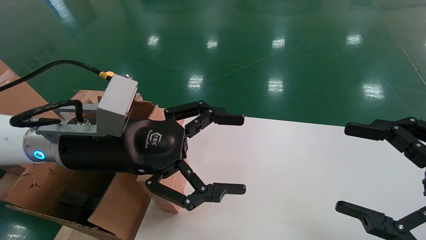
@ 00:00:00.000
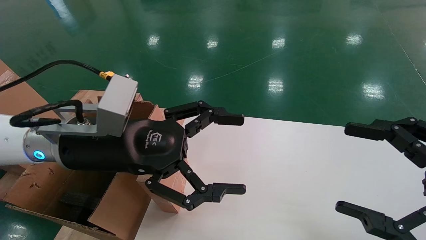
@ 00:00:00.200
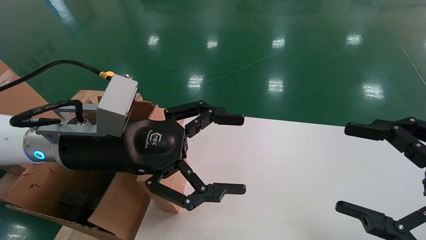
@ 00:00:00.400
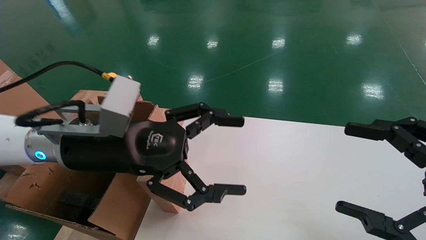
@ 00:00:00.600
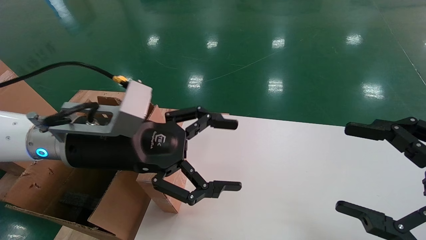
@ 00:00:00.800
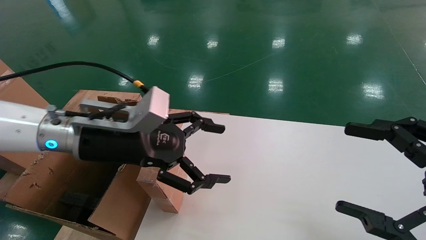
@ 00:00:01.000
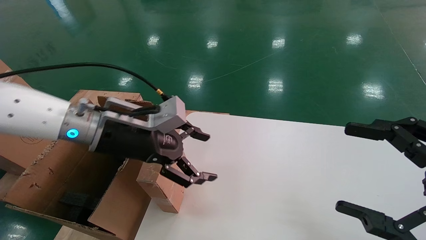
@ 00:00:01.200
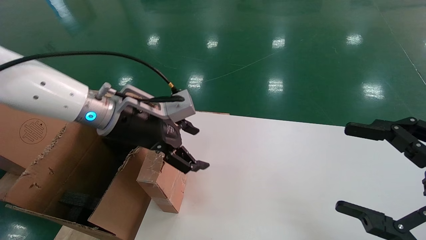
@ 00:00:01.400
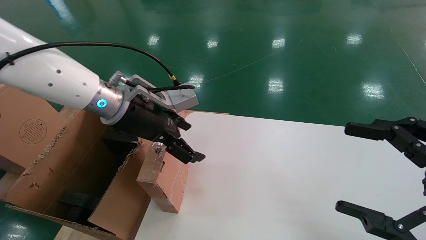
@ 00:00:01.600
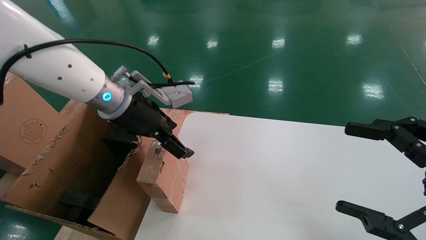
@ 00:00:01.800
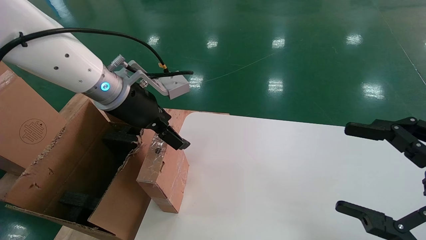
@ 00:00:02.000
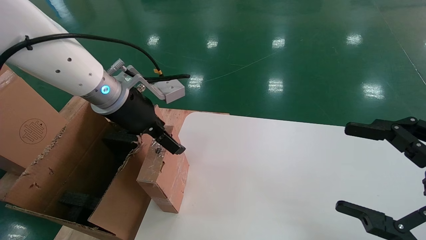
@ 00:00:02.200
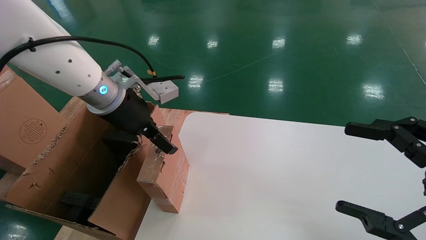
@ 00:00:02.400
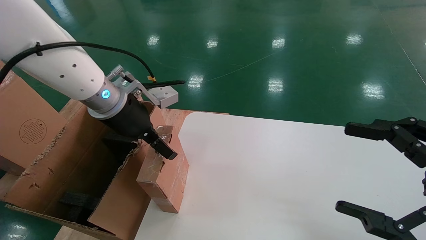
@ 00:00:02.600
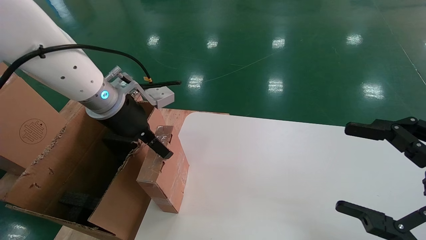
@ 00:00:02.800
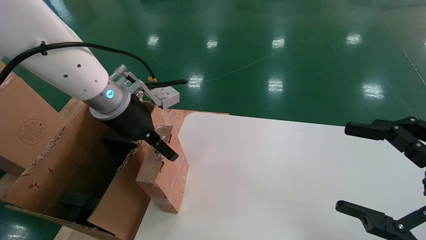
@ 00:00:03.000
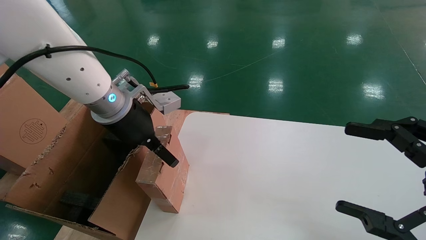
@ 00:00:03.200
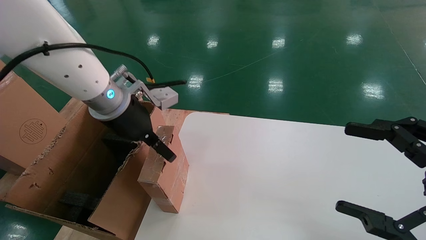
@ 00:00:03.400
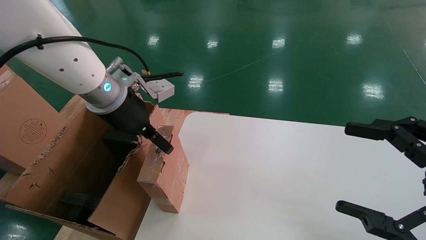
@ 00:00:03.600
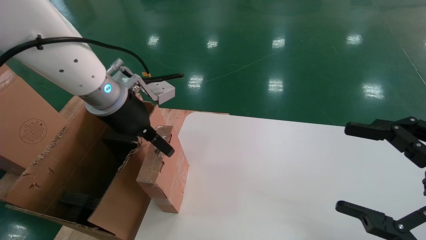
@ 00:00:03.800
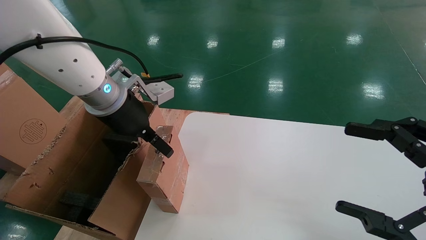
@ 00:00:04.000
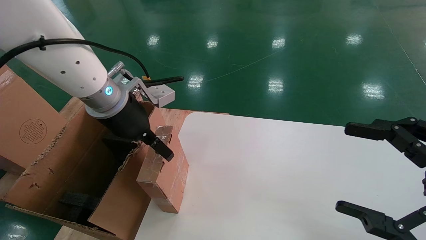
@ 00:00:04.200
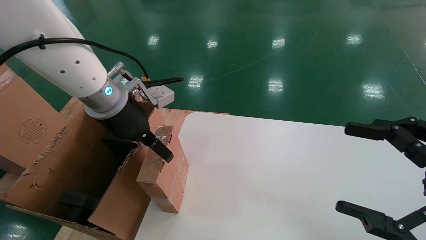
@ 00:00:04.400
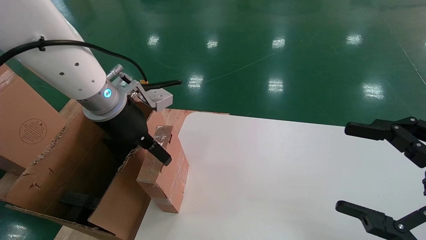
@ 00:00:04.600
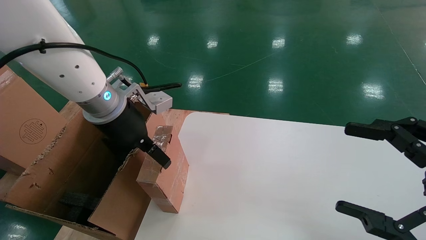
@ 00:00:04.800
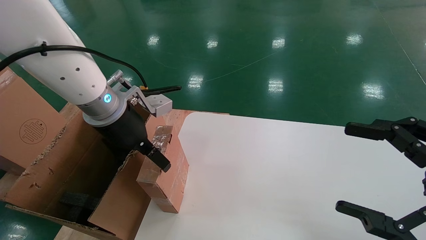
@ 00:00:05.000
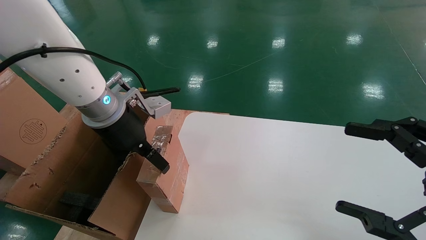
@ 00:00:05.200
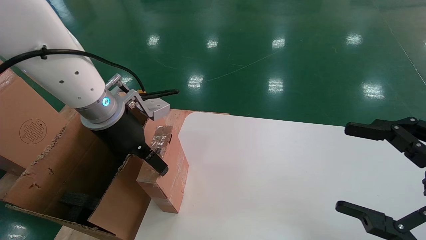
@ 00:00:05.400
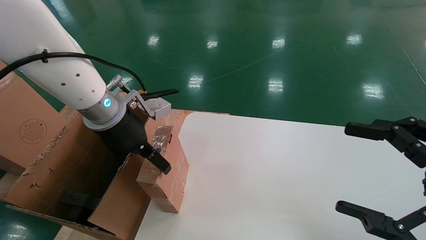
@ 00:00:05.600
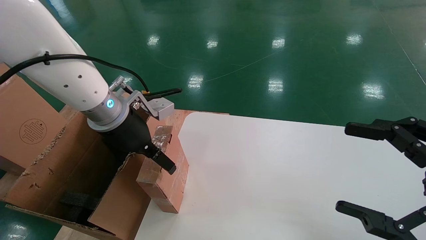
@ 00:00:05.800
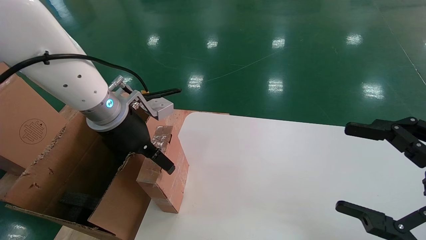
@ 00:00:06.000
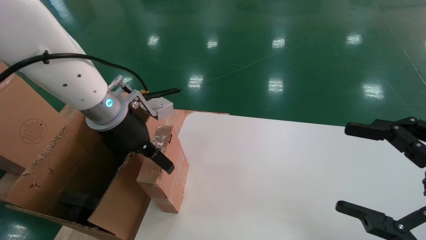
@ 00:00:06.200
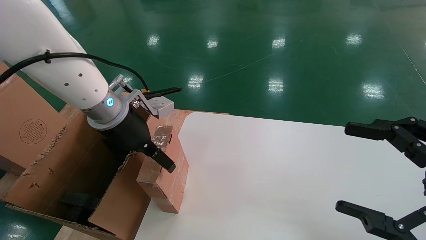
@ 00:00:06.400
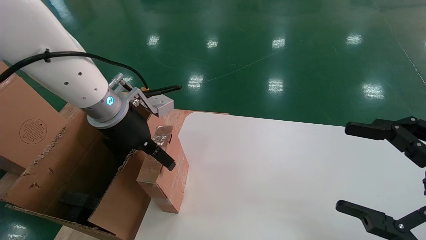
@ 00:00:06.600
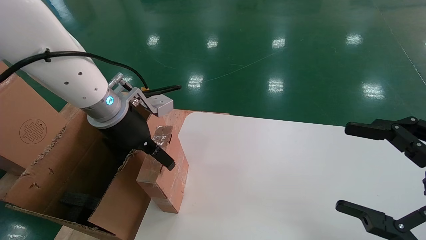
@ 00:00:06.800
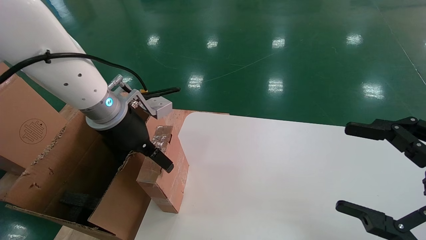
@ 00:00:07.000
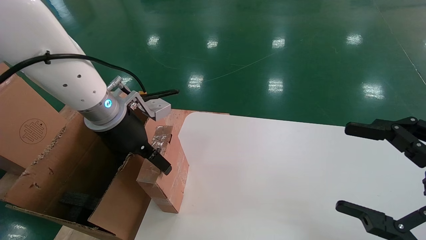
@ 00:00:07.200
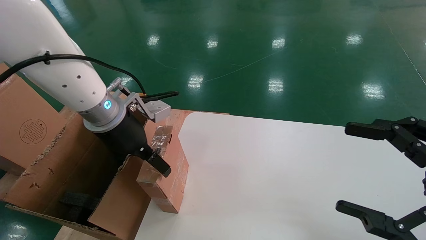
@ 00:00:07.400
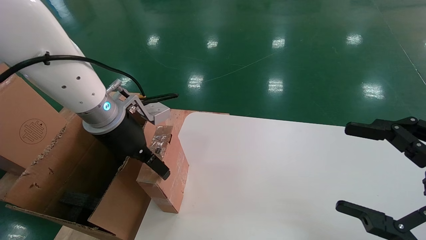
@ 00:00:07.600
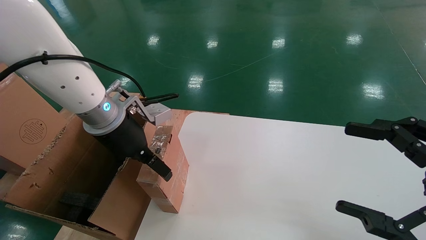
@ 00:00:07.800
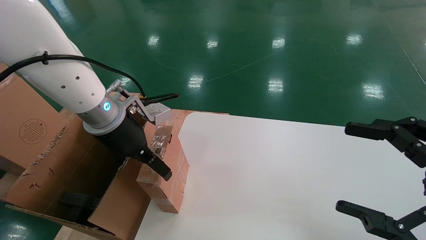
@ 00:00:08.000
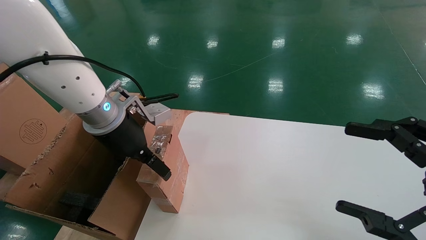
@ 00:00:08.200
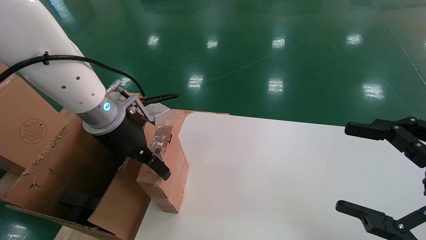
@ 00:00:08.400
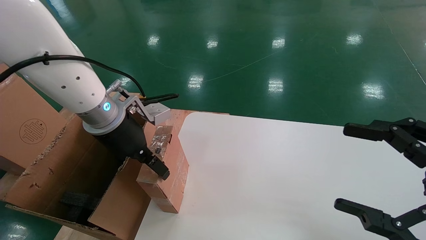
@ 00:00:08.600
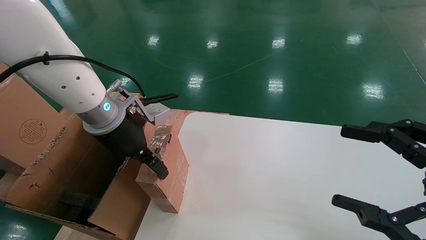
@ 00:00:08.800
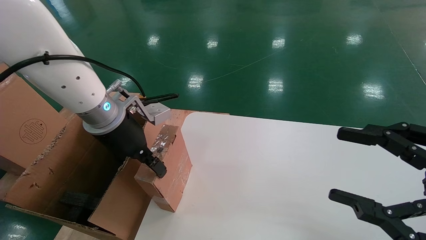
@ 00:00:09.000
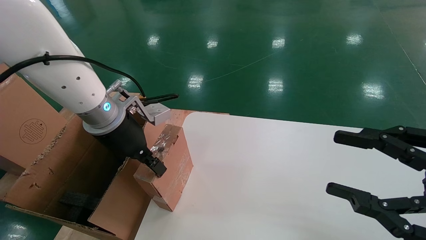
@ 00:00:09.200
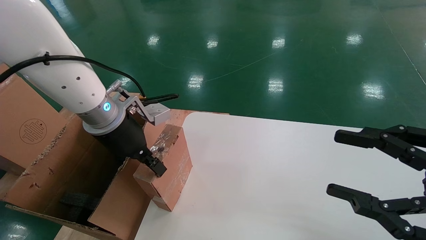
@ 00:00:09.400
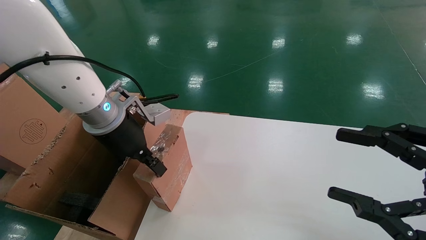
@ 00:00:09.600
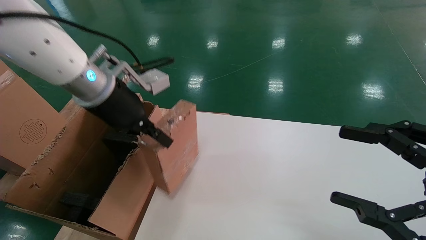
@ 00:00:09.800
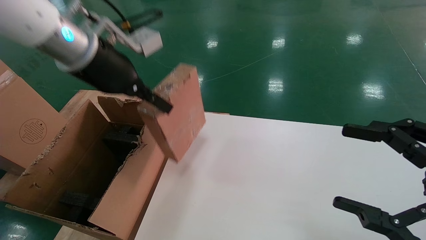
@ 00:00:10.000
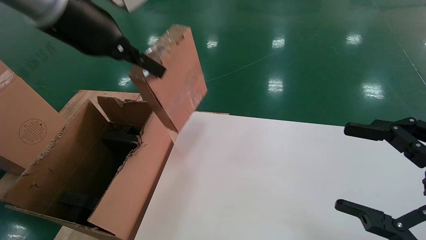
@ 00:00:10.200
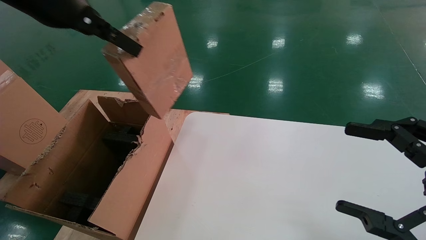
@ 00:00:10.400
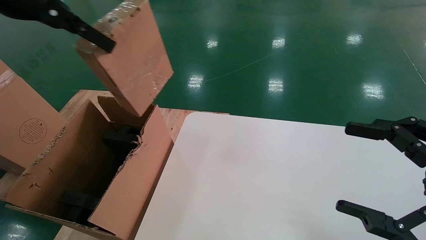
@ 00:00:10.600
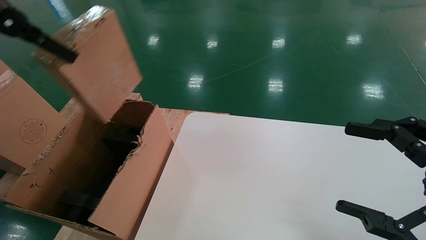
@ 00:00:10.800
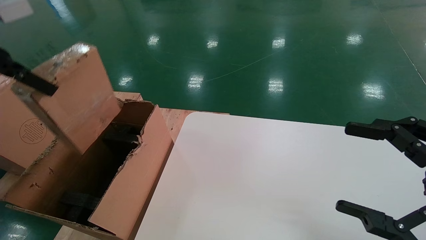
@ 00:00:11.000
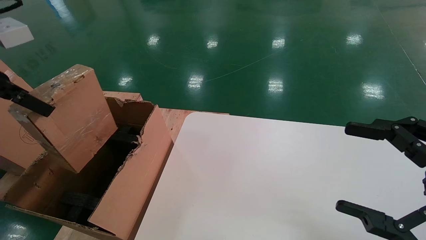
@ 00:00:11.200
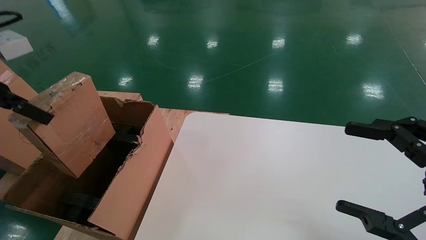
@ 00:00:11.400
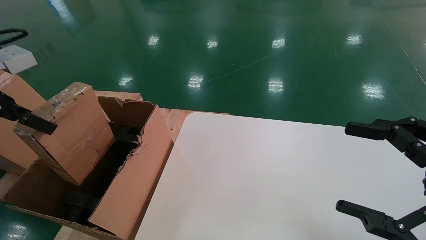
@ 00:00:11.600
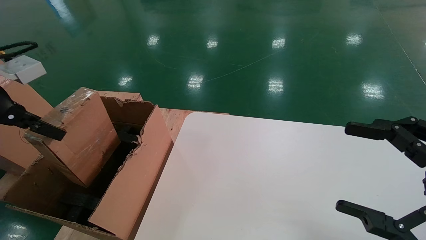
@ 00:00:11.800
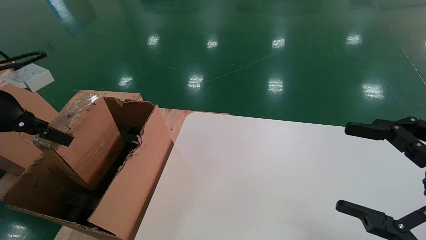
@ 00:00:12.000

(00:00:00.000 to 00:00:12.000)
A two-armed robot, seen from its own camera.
Task of the whole recording: put the box on the table into the big box.
Step, 00:00:01.200 - 00:00:09.200: Pick up the mouse and power cord box.
00:00:00.000 - 00:00:01.600: The left gripper travels forward by approximately 10 cm.
00:00:03.000 - 00:00:06.000: The grippers stay close to where they were, moving slightly.
00:00:06.000 - 00:00:07.600: Neither gripper changes place.
00:00:07.600 - 00:00:09.000: The right gripper closes. The left gripper closes.
00:00:09.000 - 00:00:10.400: The left gripper travels upward by about 20 cm, and closes up. Meanwhile the right gripper opens.
00:00:10.400 - 00:00:12.000: The left gripper moves downward and to the left, some 20 cm.

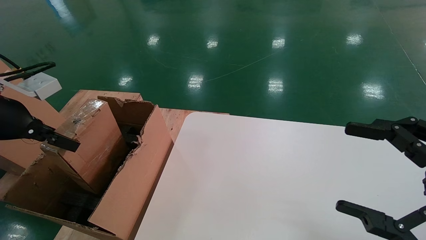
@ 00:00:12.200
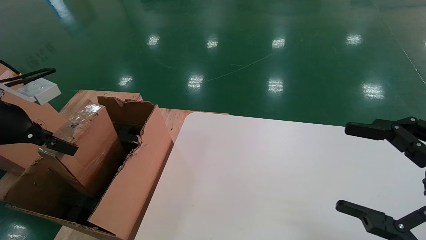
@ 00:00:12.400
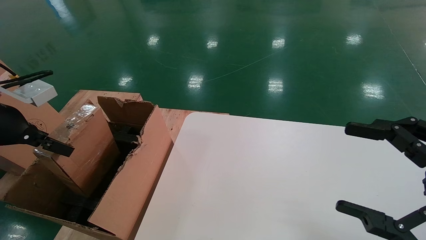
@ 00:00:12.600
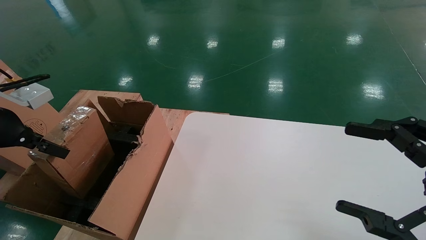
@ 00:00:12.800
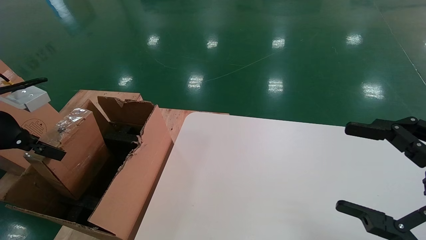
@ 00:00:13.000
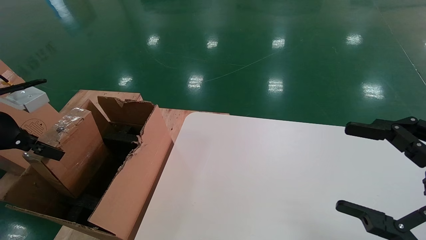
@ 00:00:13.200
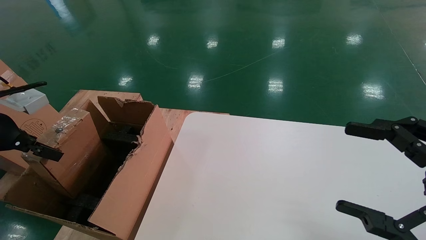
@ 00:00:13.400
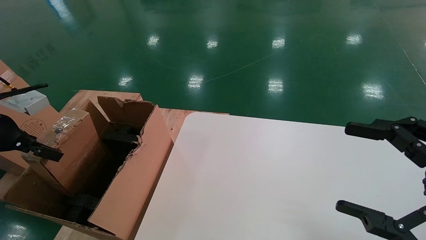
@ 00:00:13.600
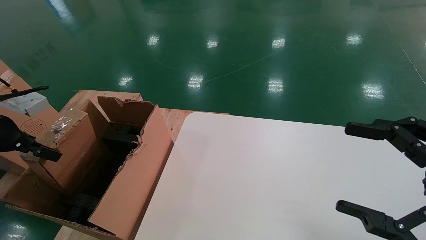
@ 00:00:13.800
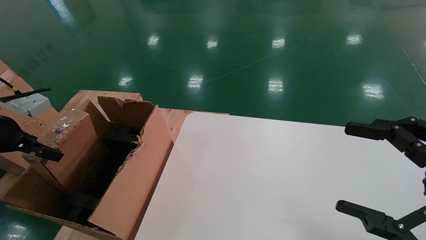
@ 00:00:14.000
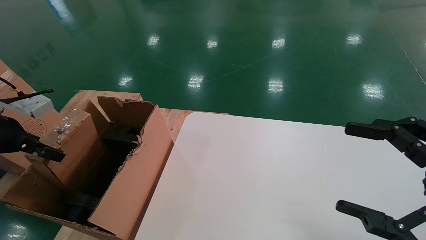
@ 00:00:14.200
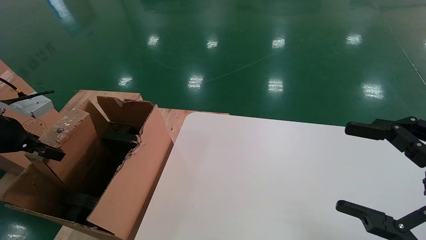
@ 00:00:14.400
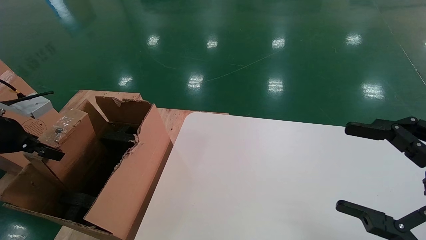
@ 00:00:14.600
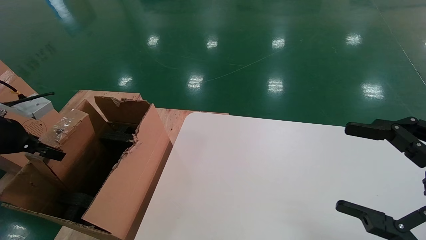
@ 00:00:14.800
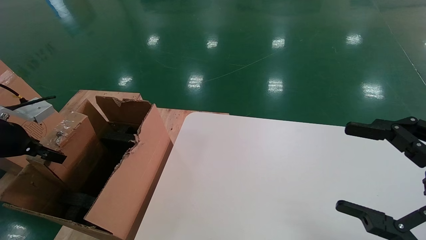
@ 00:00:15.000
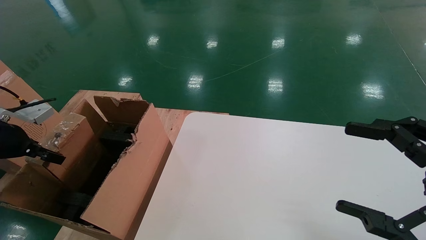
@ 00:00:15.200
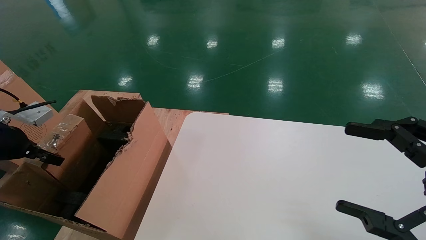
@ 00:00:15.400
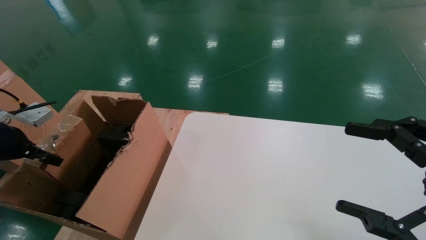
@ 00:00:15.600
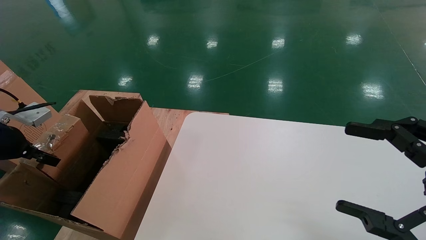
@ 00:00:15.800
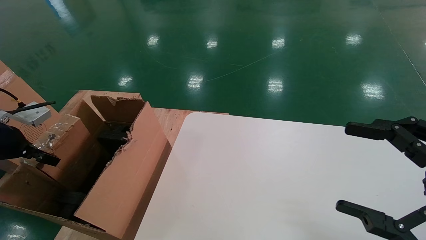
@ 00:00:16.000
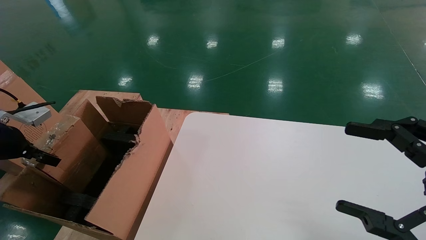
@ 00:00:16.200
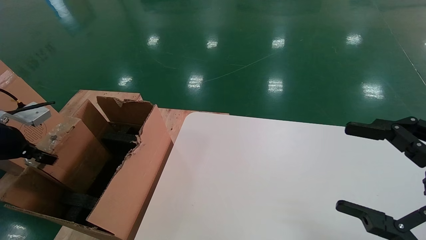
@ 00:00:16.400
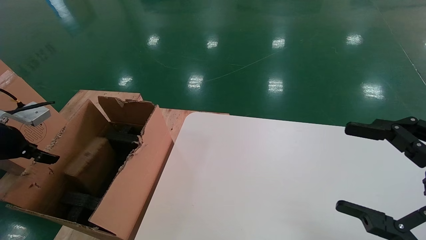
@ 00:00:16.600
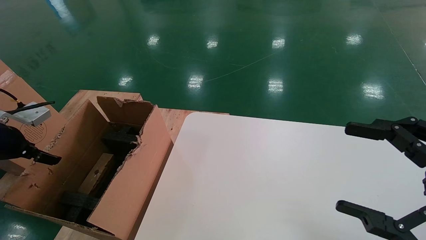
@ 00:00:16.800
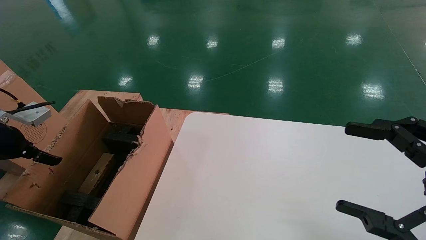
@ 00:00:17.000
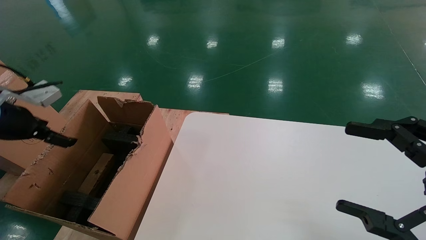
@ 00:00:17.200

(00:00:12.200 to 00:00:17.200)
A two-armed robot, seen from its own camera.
Task of the whole recording: put the box on the table into the big box.
Step, 00:00:12.200 - 00:00:16.800: Place the mouse and power cord box into the container.
00:00:12.200 - 00:00:13.800: The left gripper shifts by approximately 5 cm.
00:00:13.800 - 00:00:15.600: The left gripper ends up about 5 cm from where it was.
00:00:15.600 - 00:00:17.200: The left gripper shifts by approximately 5 cm, and opens its fingers.
